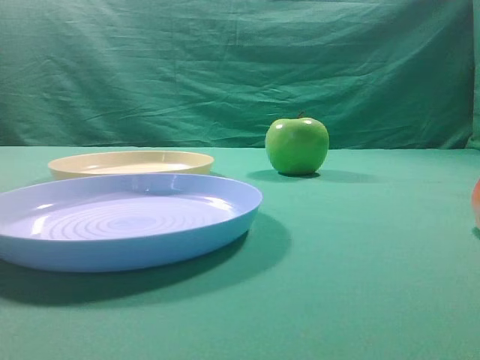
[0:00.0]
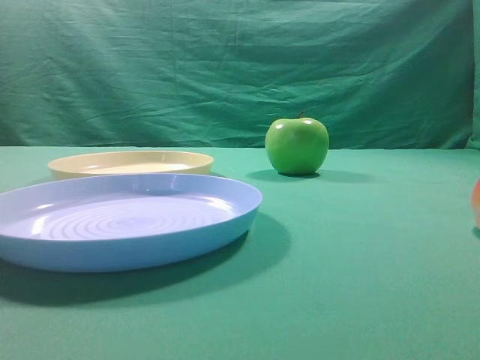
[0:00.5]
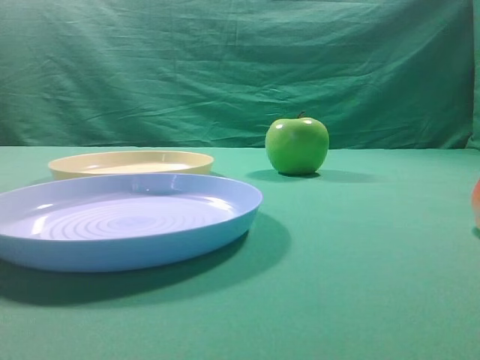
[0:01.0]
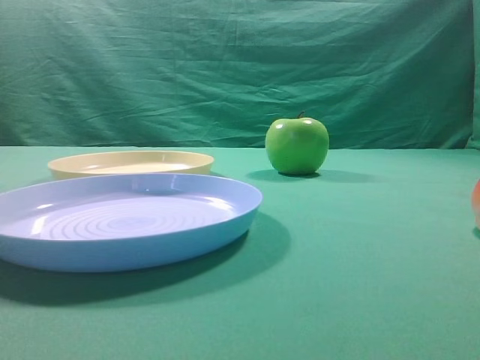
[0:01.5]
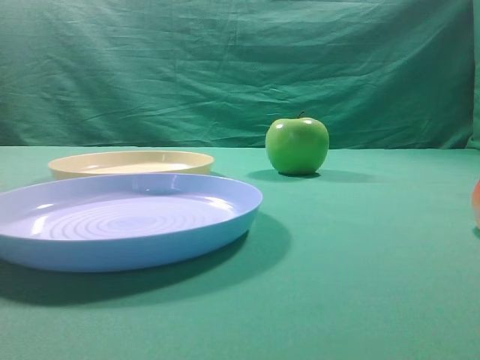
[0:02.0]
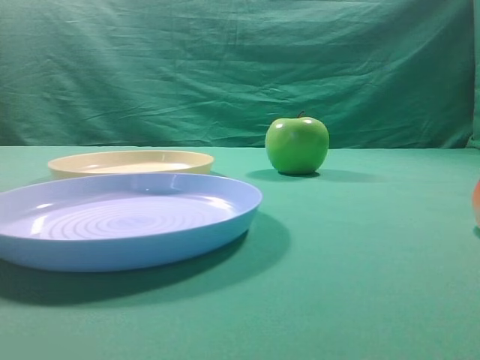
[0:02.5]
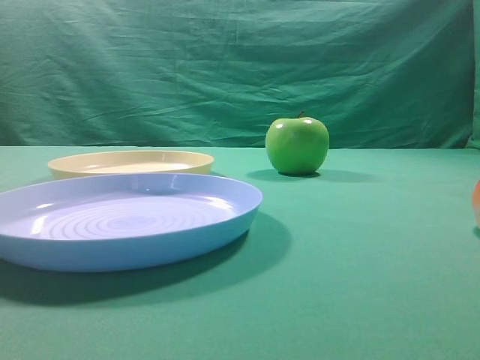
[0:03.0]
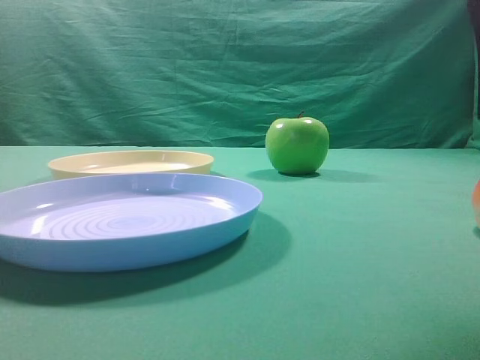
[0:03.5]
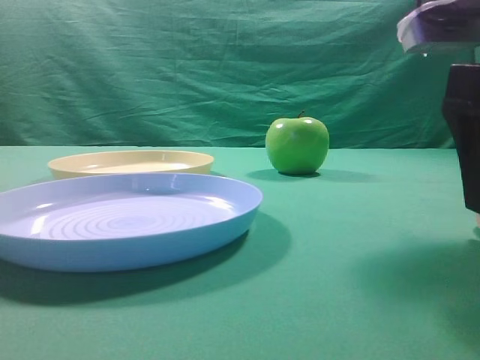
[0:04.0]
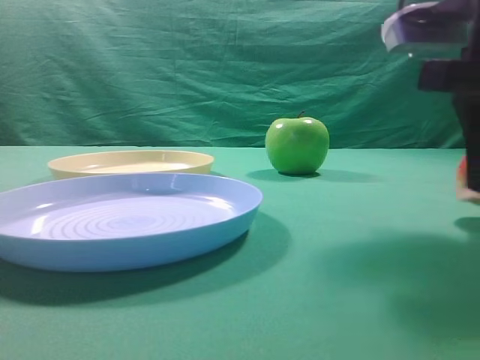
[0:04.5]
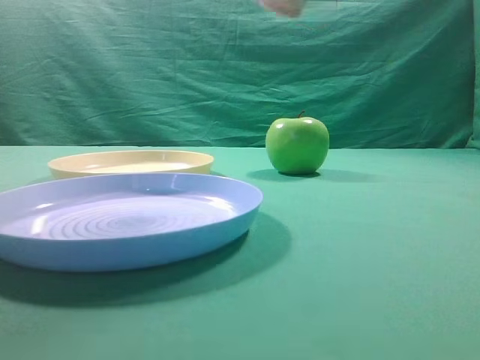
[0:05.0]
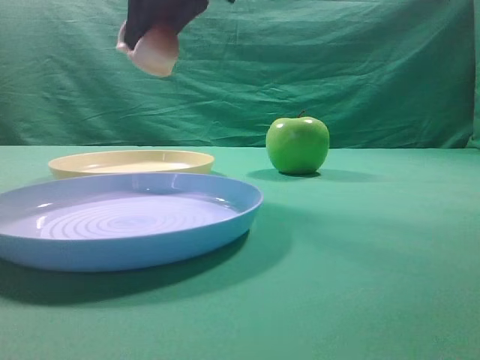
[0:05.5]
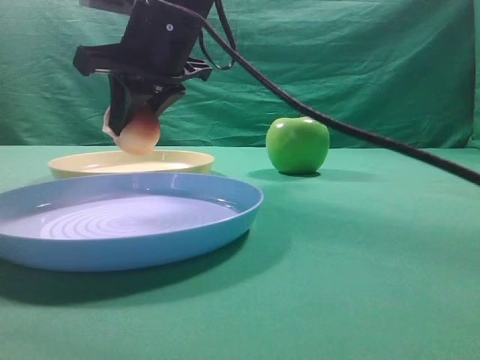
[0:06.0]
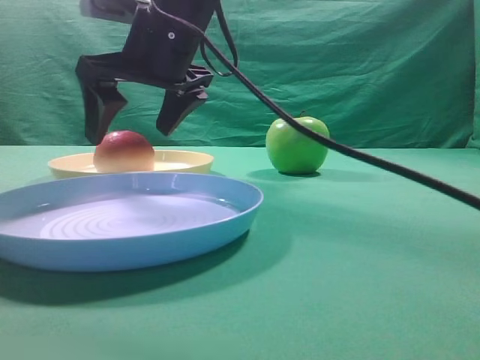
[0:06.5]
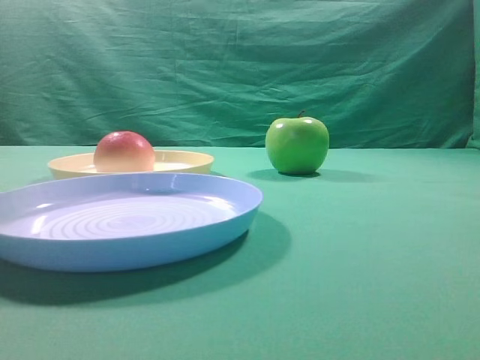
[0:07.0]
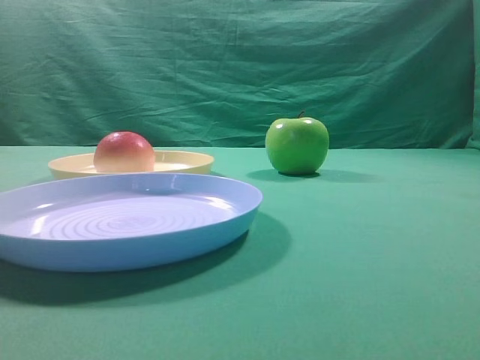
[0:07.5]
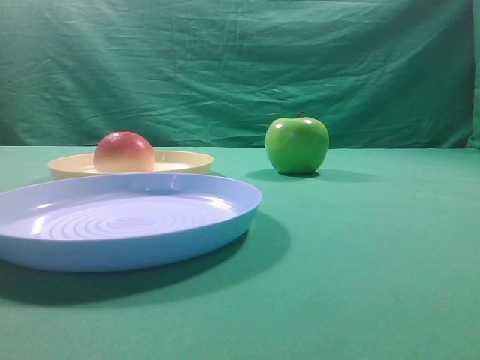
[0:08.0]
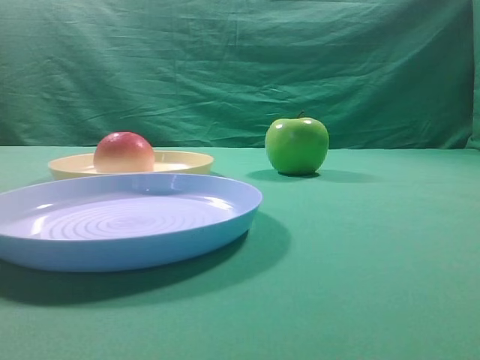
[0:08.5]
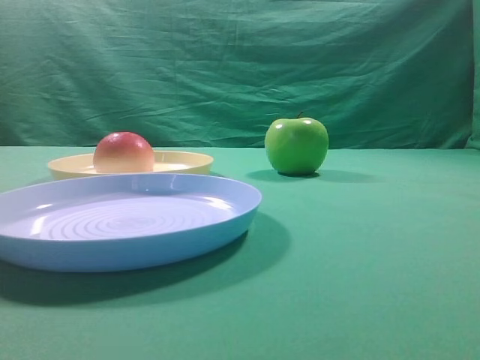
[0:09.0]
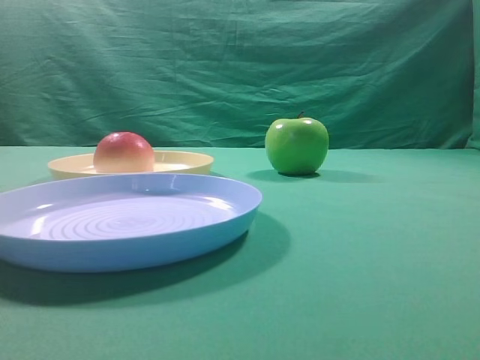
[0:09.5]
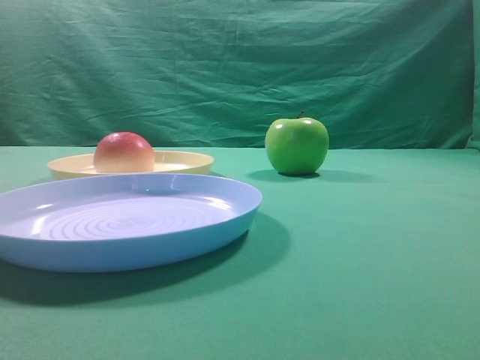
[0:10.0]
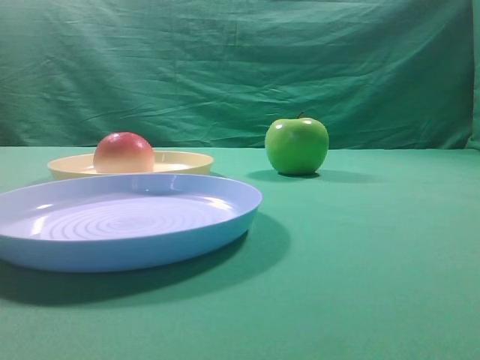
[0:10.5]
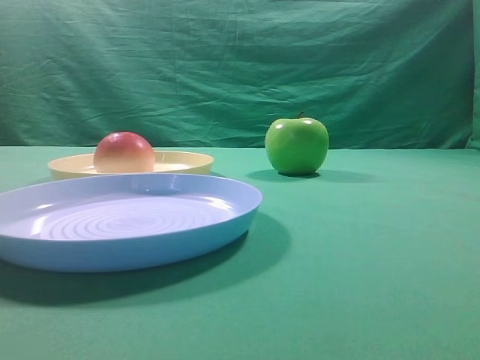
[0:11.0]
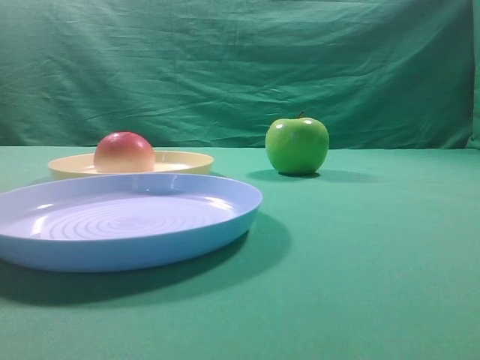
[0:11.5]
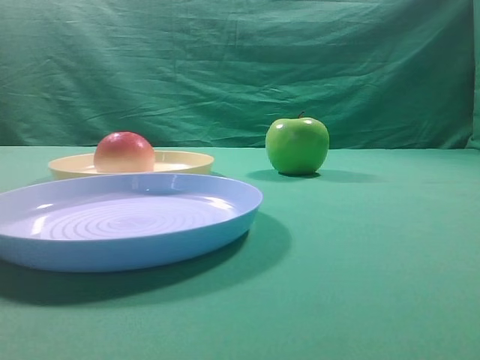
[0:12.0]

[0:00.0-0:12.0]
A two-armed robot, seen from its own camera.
Step, 0:05.0 to 0:06.5: Place the picked object on the yellow plate.
